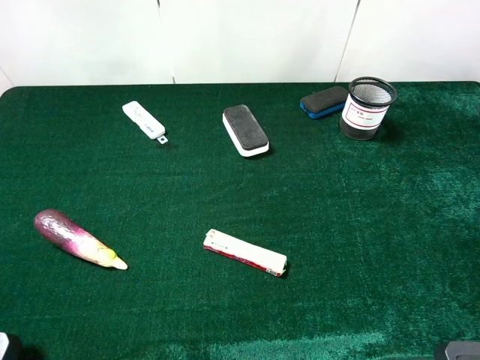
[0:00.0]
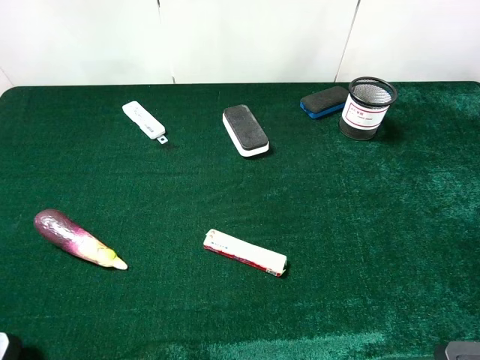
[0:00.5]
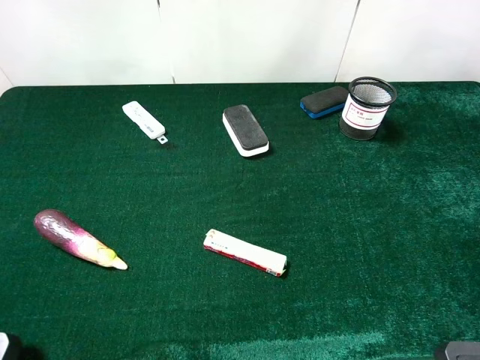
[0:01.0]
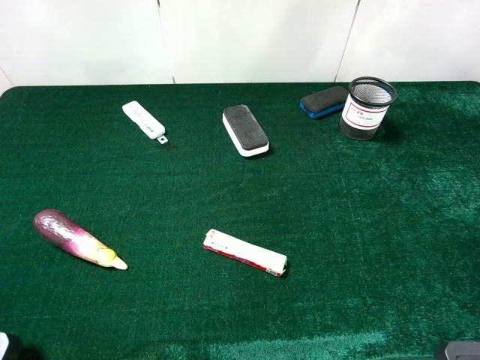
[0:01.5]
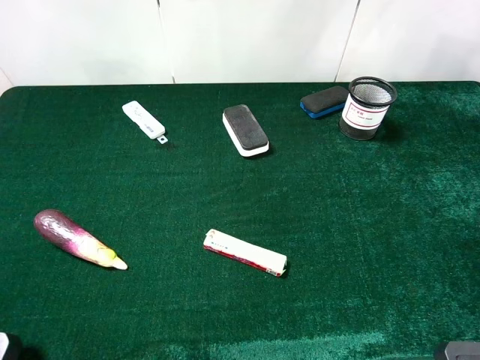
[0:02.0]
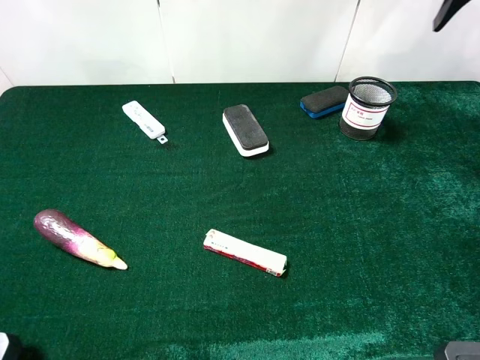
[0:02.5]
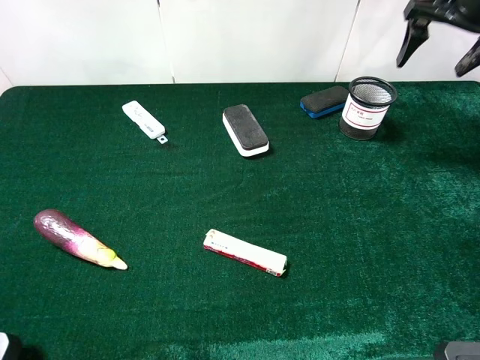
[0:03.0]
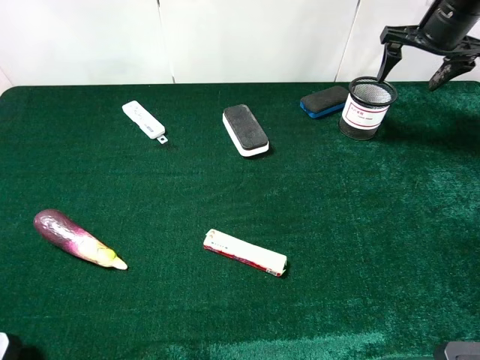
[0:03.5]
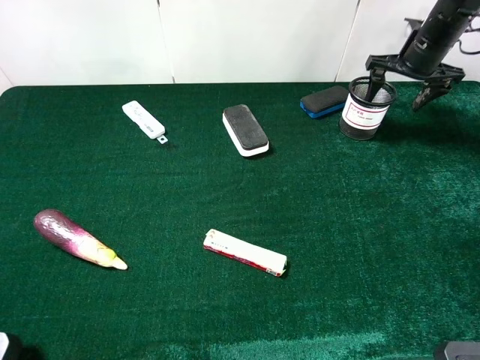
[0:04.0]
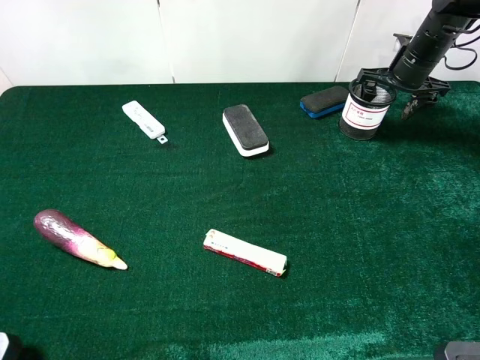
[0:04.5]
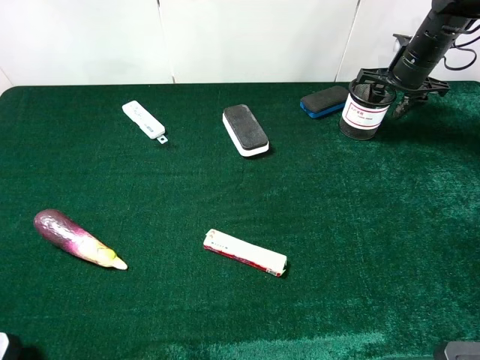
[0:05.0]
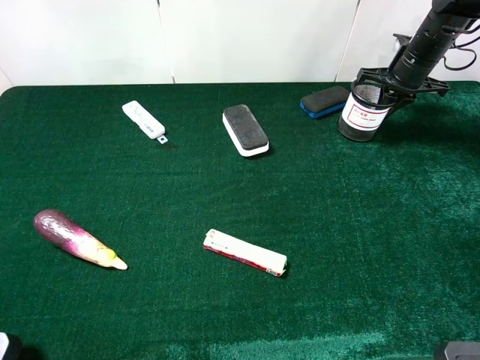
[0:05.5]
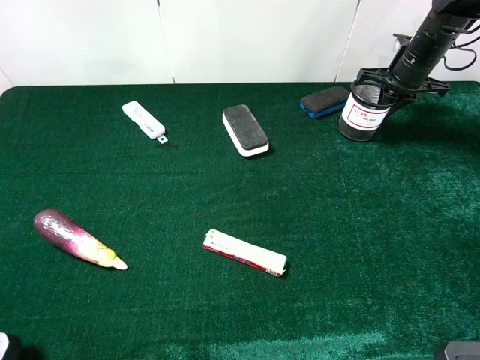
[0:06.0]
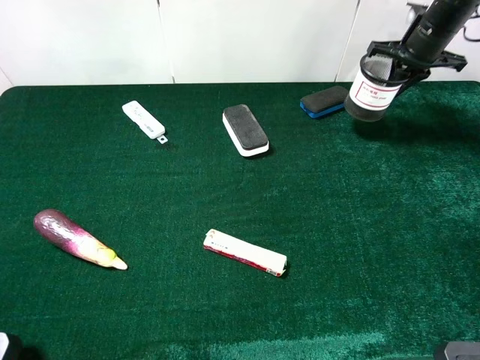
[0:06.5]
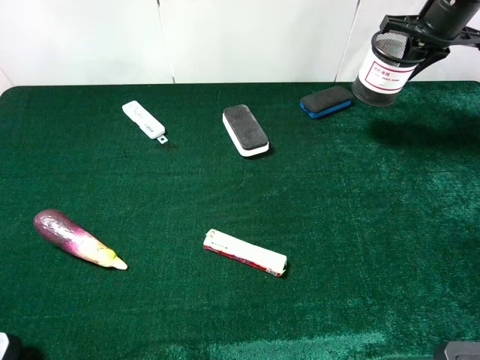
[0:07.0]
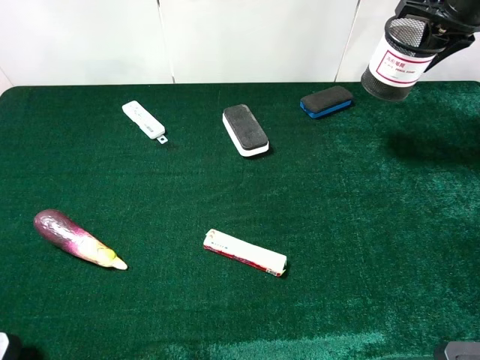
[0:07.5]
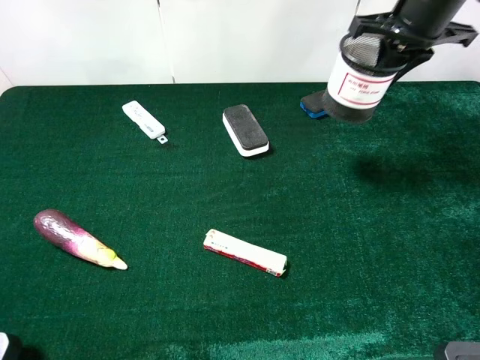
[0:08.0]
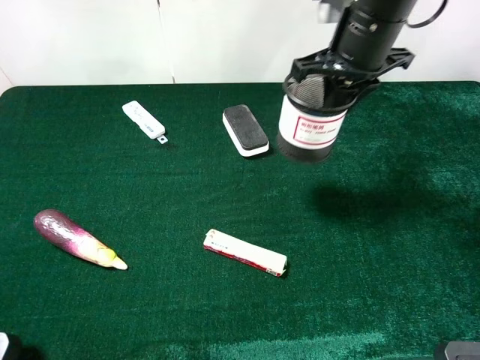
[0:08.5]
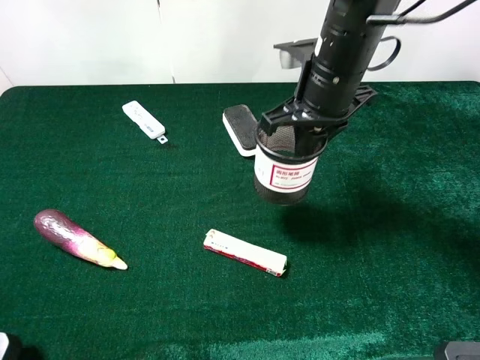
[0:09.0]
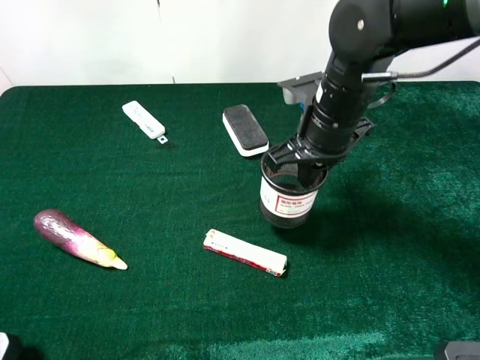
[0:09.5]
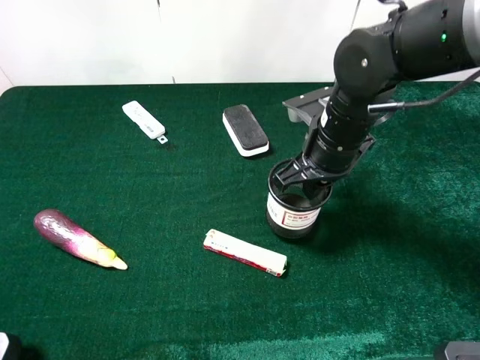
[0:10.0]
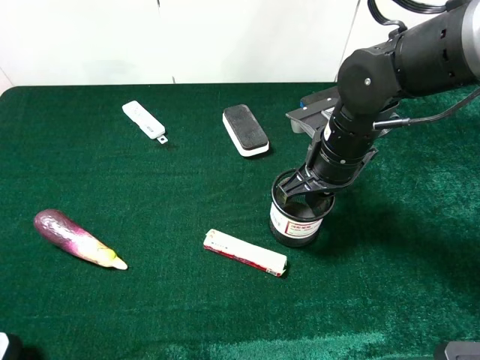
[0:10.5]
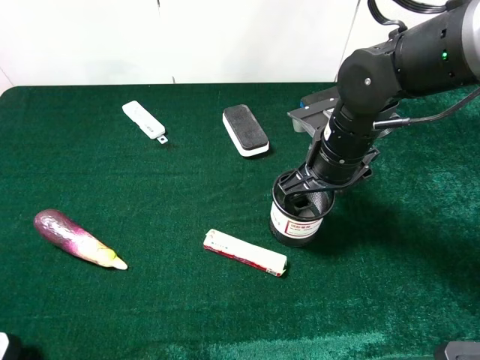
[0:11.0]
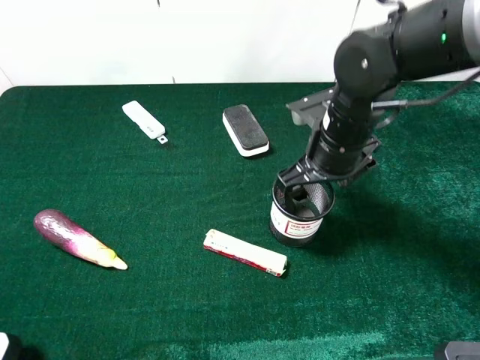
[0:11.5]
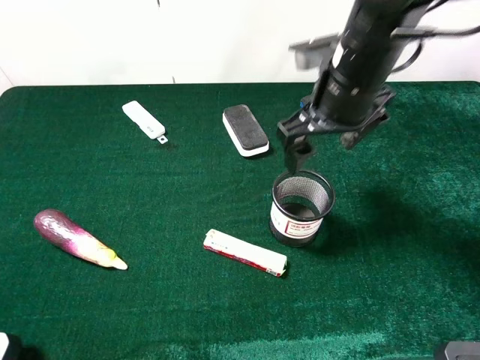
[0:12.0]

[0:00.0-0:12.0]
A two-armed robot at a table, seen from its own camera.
Task of the whole recording: the gripper move the object.
Step, 0:00.0 to 0:05.5: Grasp the pen container with the right gripper mangosteen.
Step, 0:06.0 to 0:11.5: Place the pen container on the table with the right gripper.
0:02.0 to 0:04.0: The right gripper goes approximately 30 cm downward and forward.
0:04.0 to 0:06.0: The right gripper closes its fingers.
0:06.0 to 0:08.0: The right gripper shifts approximately 20 cm upward, backward and to the left.
0:08.0 to 0:10.0: The right gripper is displaced downward, backward and to the left by about 20 cm.
0:10.0 to 0:12.0: The right gripper heads upward, covering about 10 cm, and opens.

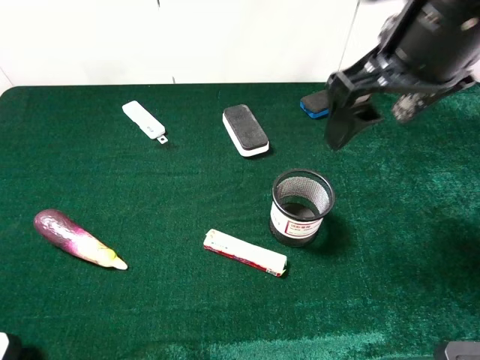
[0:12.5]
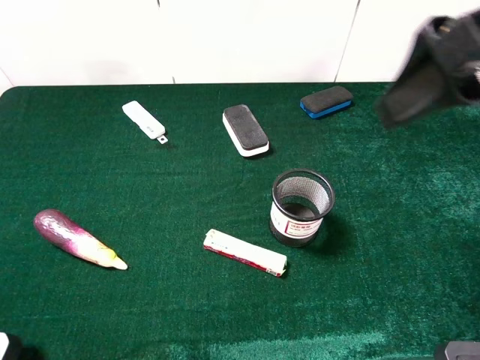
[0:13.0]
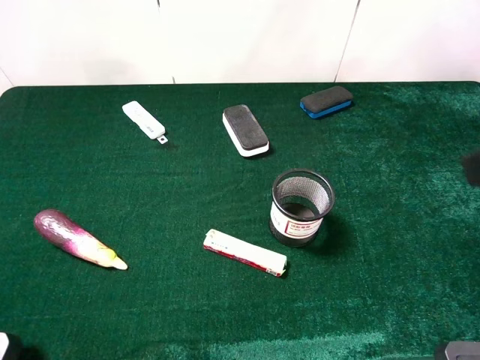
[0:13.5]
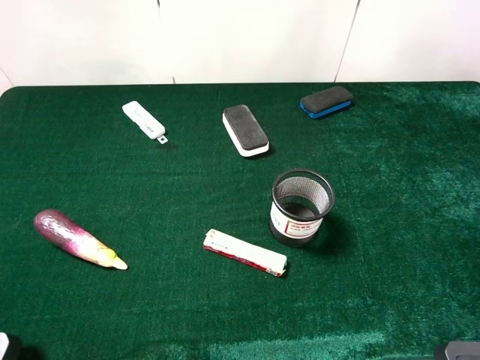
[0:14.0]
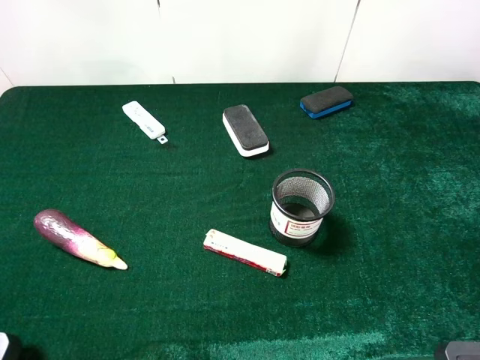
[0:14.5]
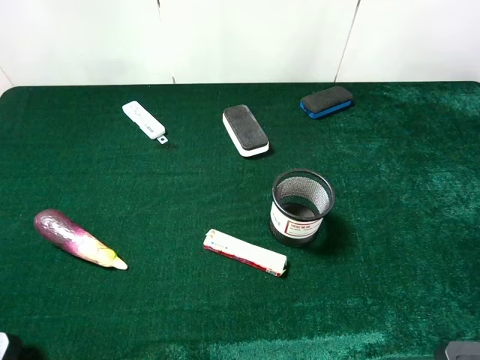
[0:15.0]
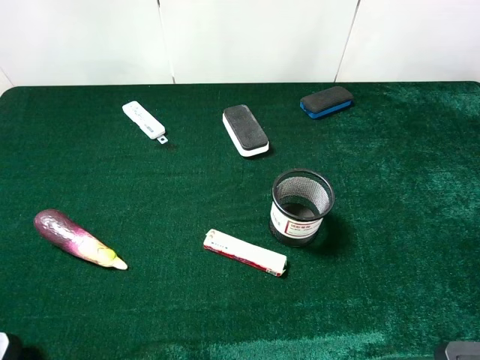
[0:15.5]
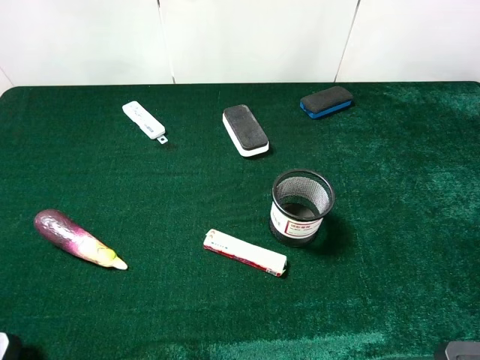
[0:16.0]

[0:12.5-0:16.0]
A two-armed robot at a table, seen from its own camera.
Task of the whole recording: the gripper move the object.
0:12.5 to 0:14.5: The right gripper heads backward and to the right, covering approximately 25 cm.

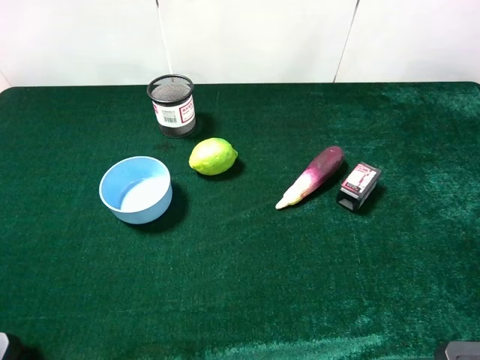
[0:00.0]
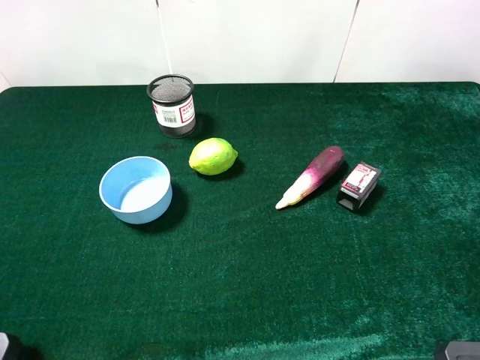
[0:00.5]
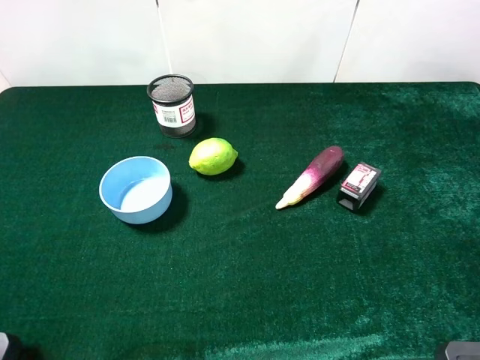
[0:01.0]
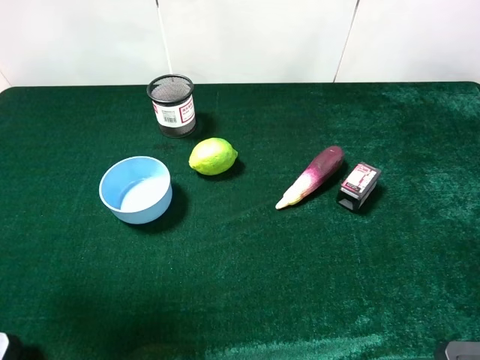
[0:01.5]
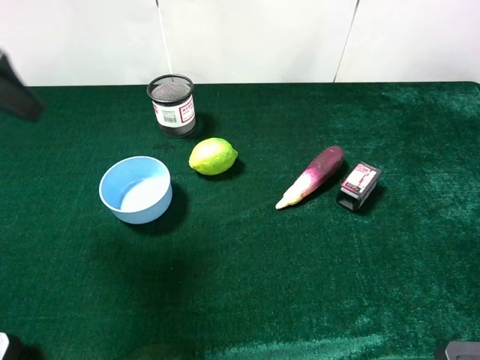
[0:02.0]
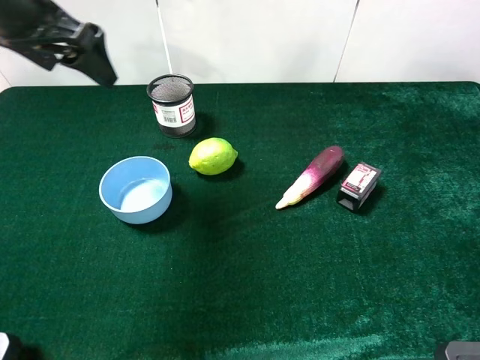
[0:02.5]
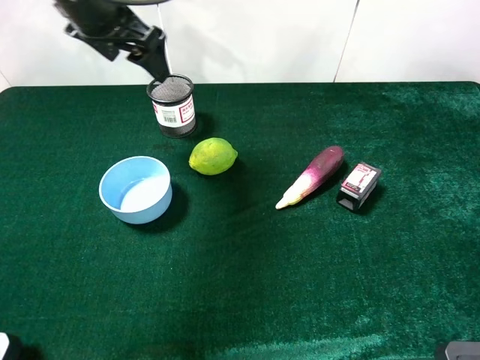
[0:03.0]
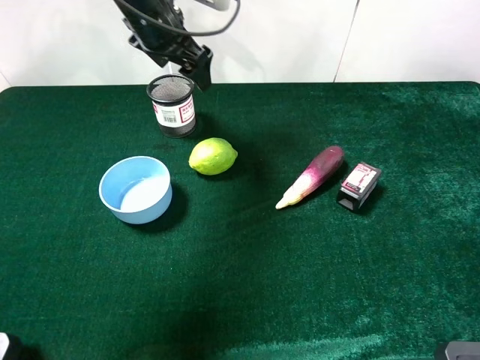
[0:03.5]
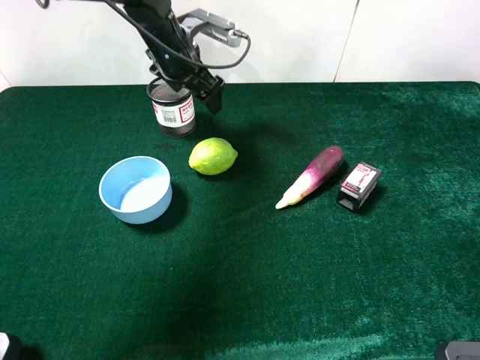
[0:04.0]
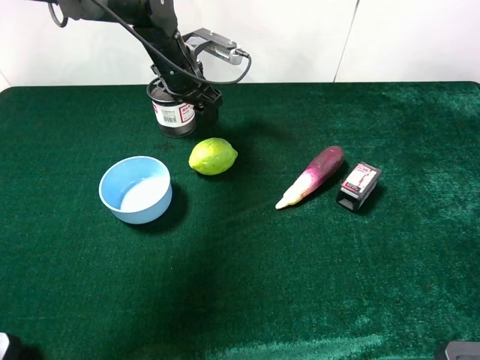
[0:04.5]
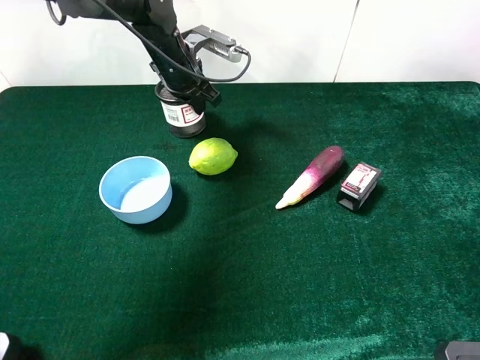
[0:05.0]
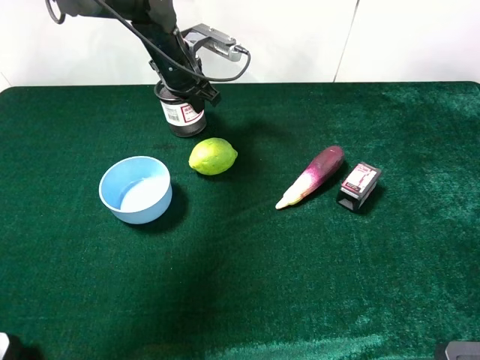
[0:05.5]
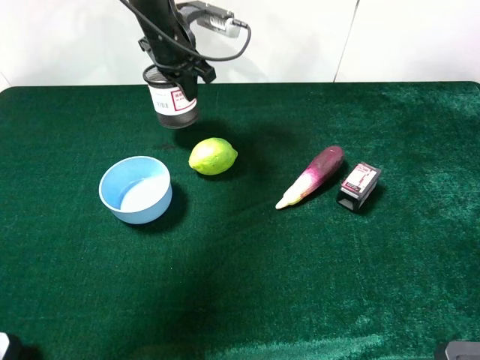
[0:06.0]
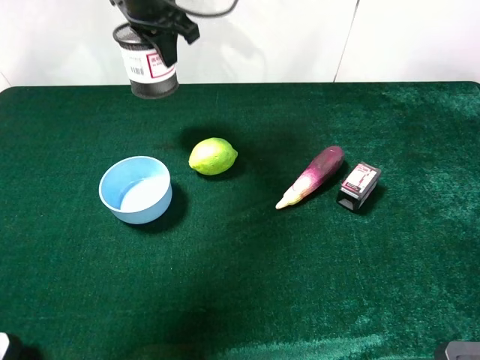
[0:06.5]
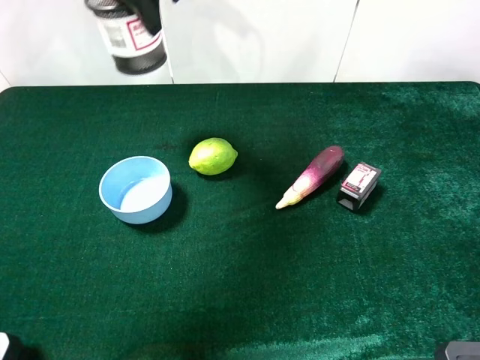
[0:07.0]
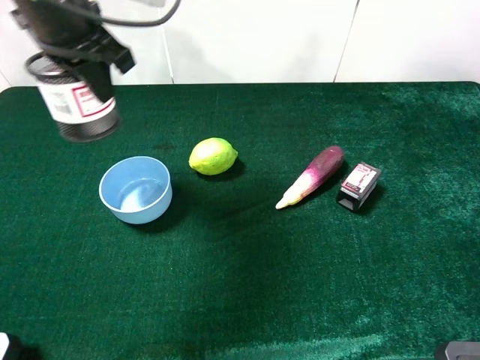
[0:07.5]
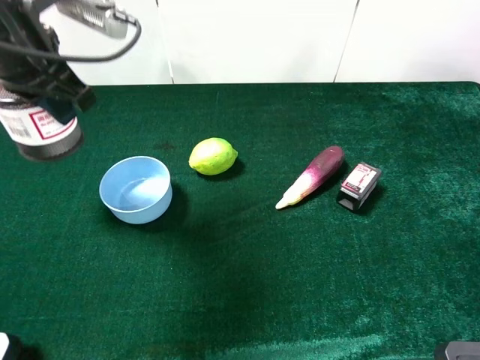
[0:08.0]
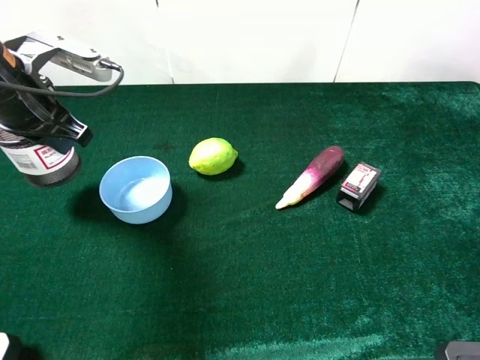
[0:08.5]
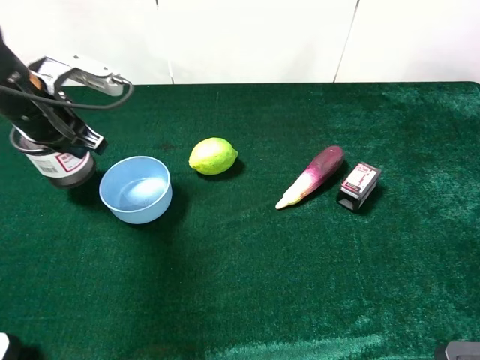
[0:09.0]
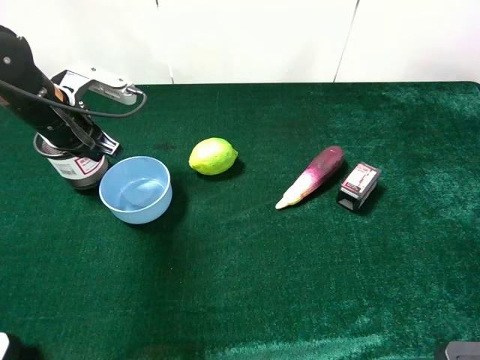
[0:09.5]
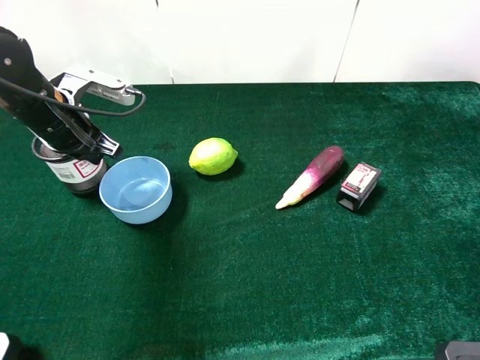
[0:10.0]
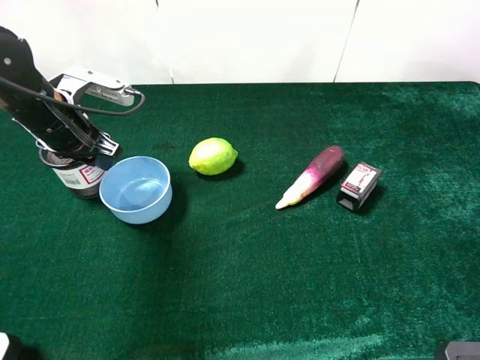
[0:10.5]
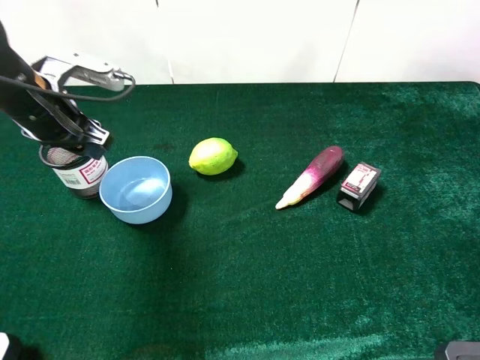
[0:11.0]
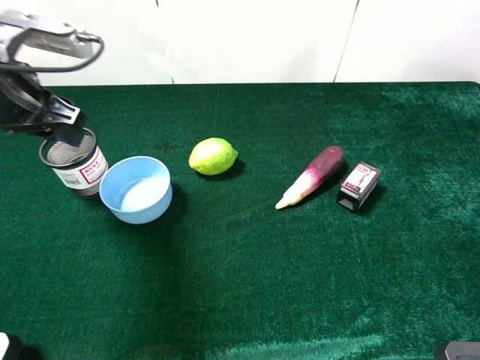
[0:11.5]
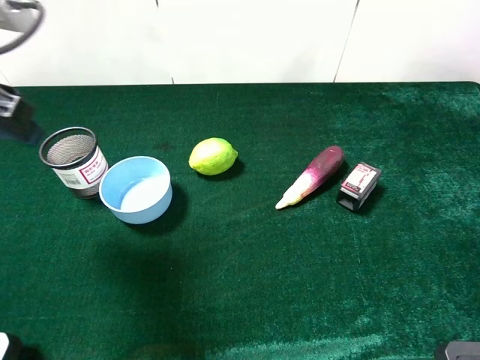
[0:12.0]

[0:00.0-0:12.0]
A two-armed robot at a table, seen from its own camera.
Task of the whole recording: the gripper move the object.
Step, 0:00.0 to 0:05.0: Grasp the pen container with the left gripper.
Step, 0:05.5 to 0:11.5: Place the pen container on the table with the left gripper.
0:00.0 to 0:02.0: The left gripper goes roughly 20 cm forward.
0:02.0 to 0:04.0: The left gripper moves forward, to the right and downward, about 30 cm.
0:04.0 to 0:06.0: The left gripper closes up.
0:06.0 to 0:08.0: The left gripper goes some 20 cm backward, to the left and upward.
0:08.0 to 0:10.0: The left gripper is displaced downward by about 10 cm.
0:10.0 to 0:12.0: The left gripper shifts roughly 15 cm upward and backward, and opens its fingers.
